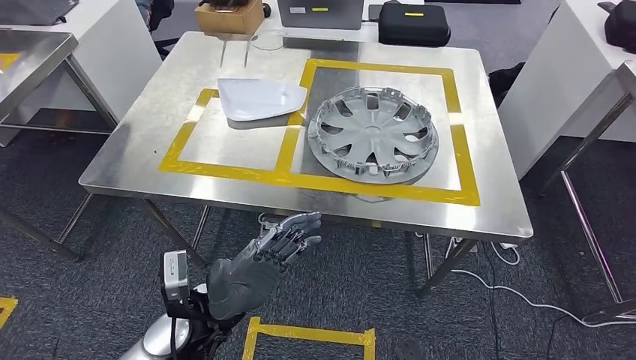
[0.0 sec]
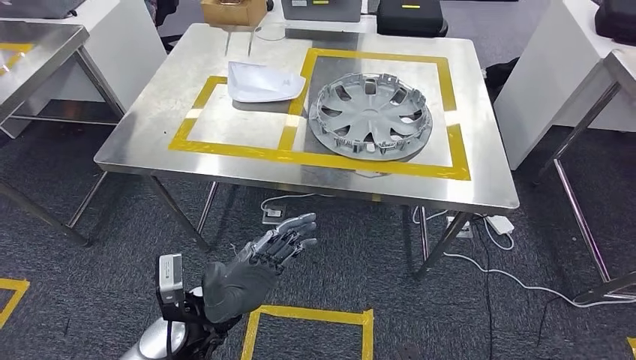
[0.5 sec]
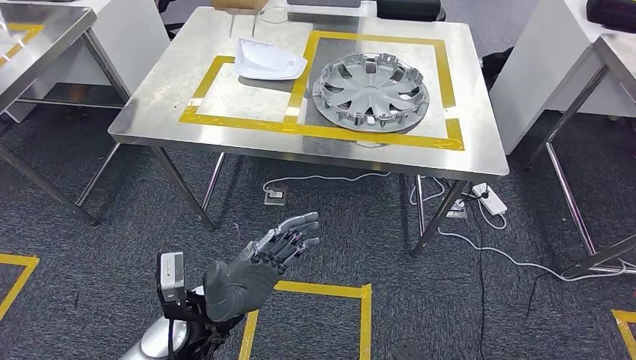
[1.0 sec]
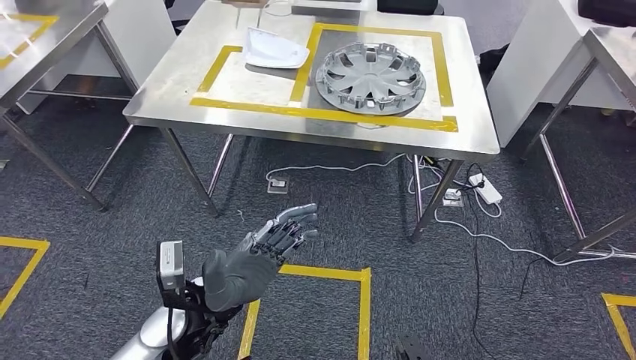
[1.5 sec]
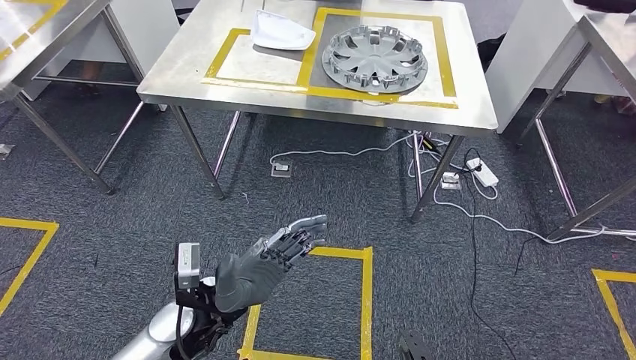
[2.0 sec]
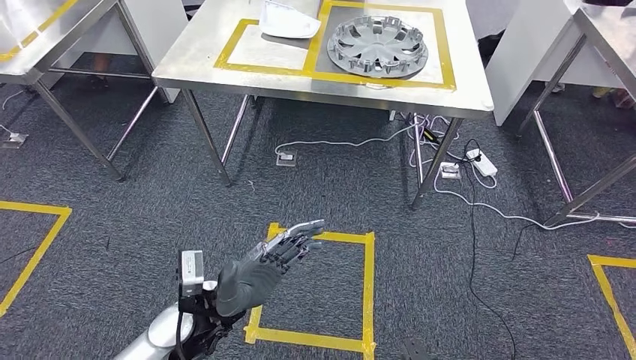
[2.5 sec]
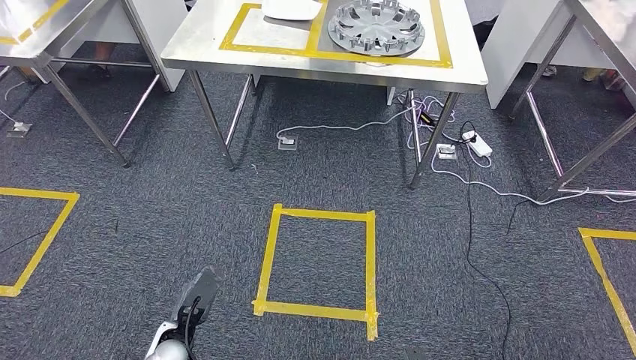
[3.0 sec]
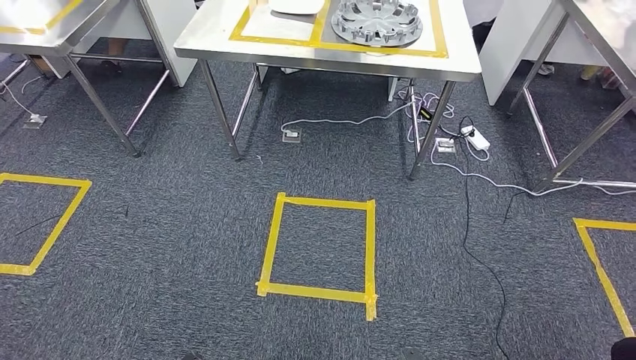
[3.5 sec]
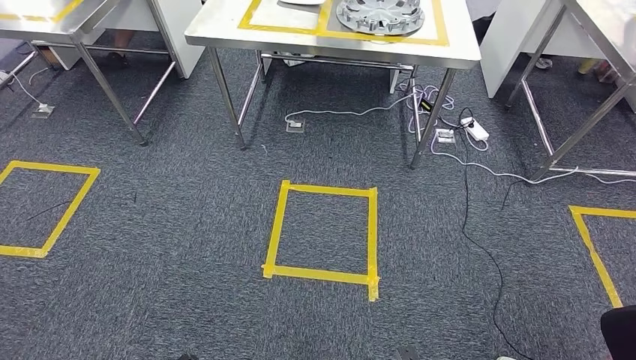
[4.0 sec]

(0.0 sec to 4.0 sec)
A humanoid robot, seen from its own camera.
Step, 0.5 sec - 4.0 sec: Move to the initial position of the workbench.
